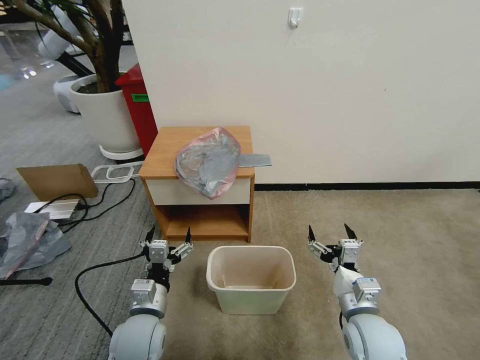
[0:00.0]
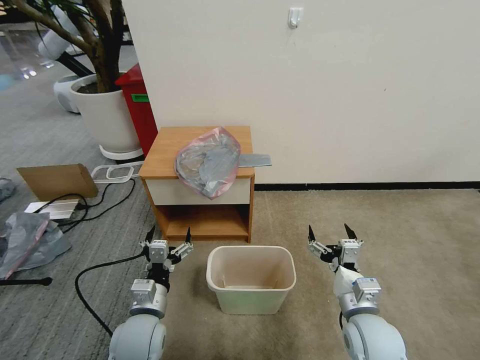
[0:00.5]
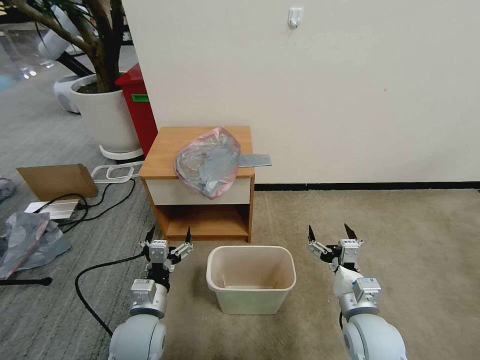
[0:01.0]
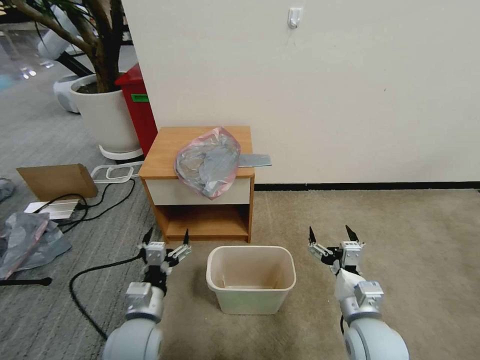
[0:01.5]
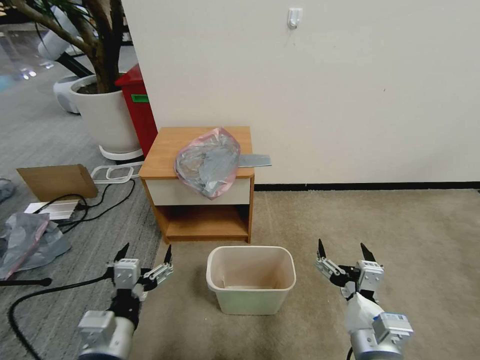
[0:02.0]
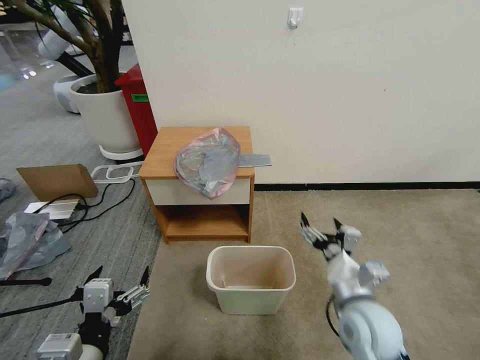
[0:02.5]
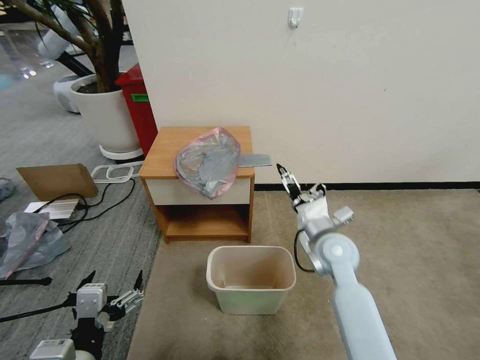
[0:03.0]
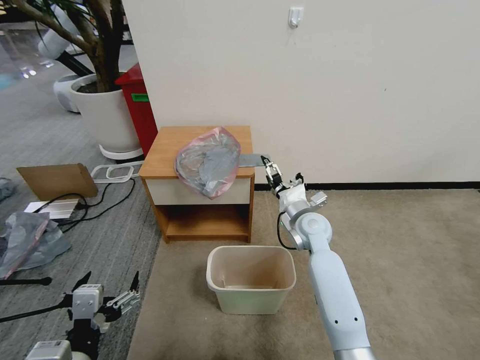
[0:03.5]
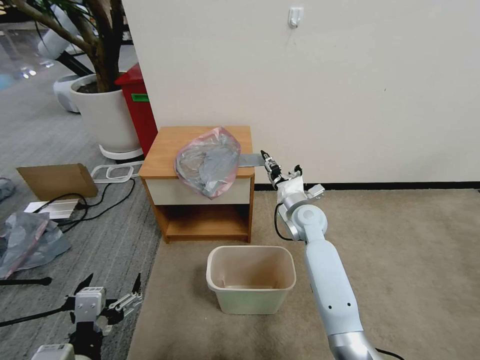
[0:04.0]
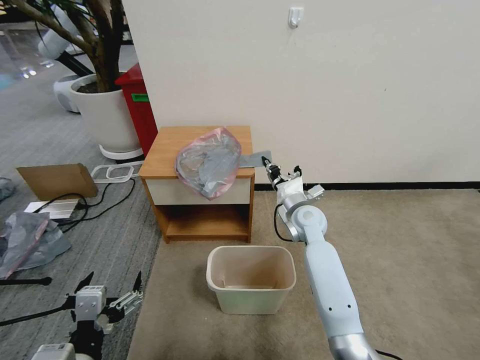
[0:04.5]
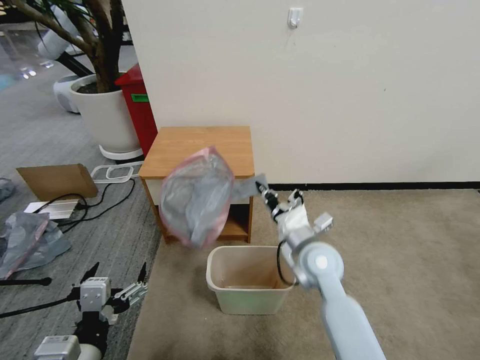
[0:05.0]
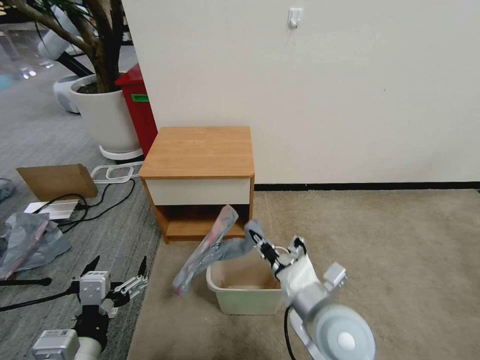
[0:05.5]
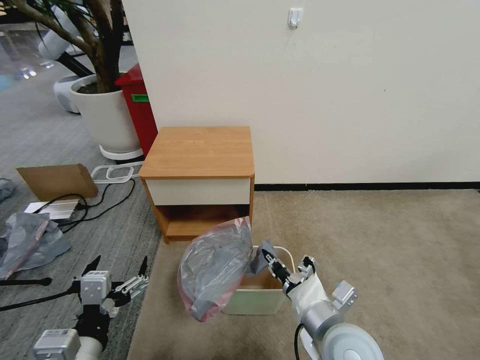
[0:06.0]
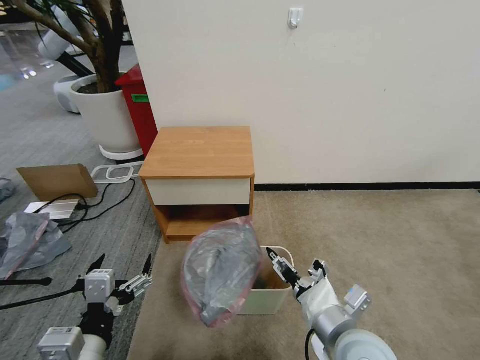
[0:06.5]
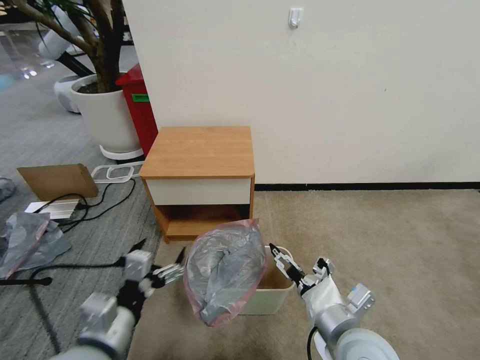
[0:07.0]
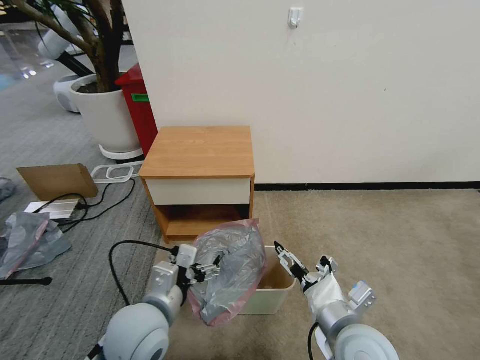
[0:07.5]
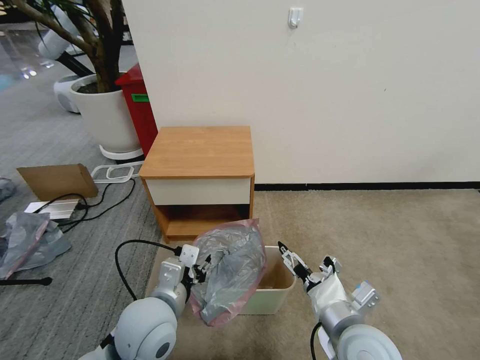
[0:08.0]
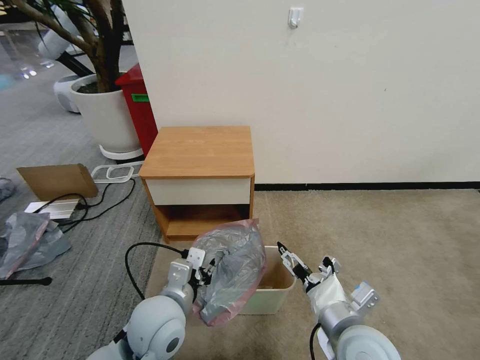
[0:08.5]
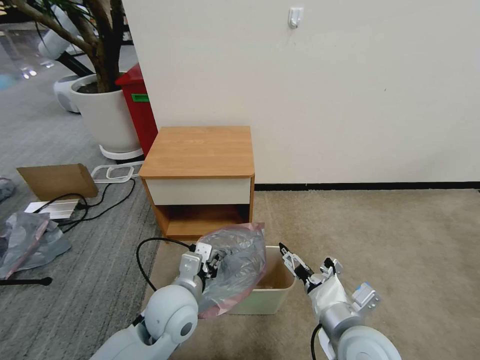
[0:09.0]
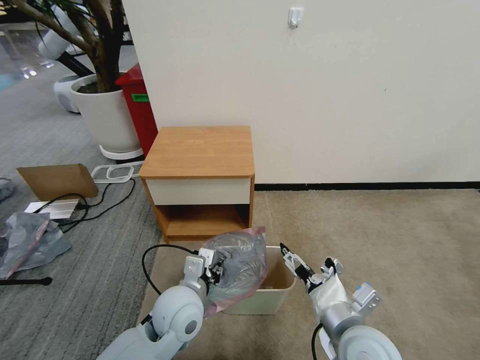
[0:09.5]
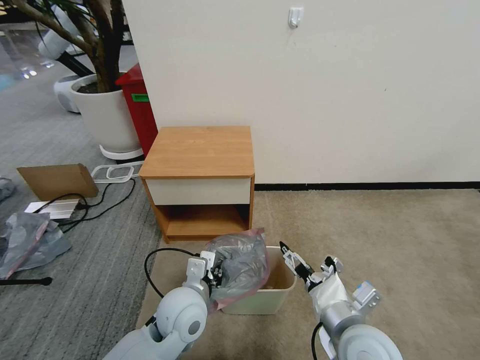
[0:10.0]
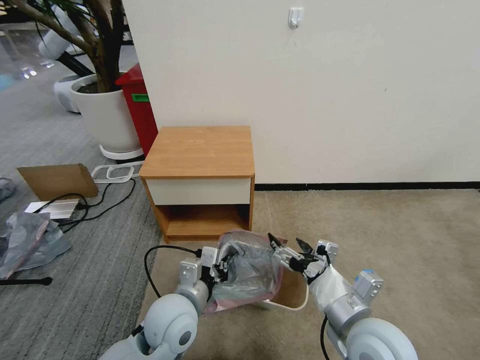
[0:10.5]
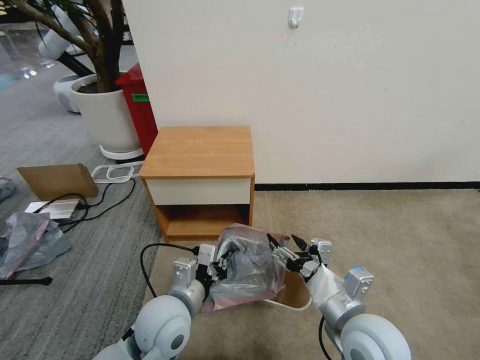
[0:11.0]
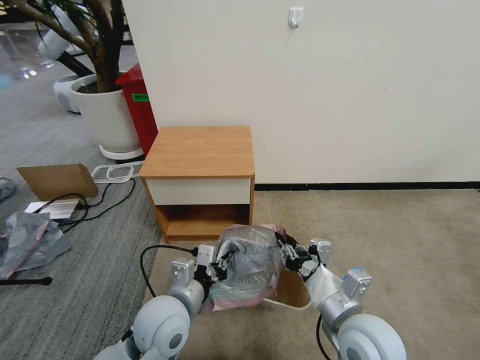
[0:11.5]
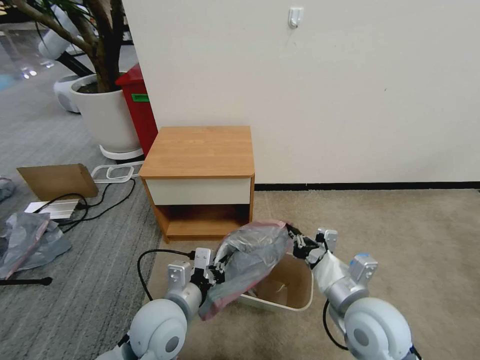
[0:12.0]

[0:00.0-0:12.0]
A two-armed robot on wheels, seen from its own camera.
Task of the whole recording: Pick up the garbage bag from the table and place it over the trash can.
0:02.0 to 0:04.0: The left gripper goes some 5 cm backward, while the right gripper heads forward, covering some 35 cm, and closes up.
0:04.0 to 0:06.0: The right gripper shifts about 30 cm backward, and closes.
0:06.0 to 0:08.0: The right gripper opens. The left gripper is displaced forward and to the right by approximately 15 cm, and closes up.
0:08.0 to 0:10.0: The left gripper is displaced downward by approximately 5 cm.
0:10.0 to 0:12.0: The right gripper closes up.

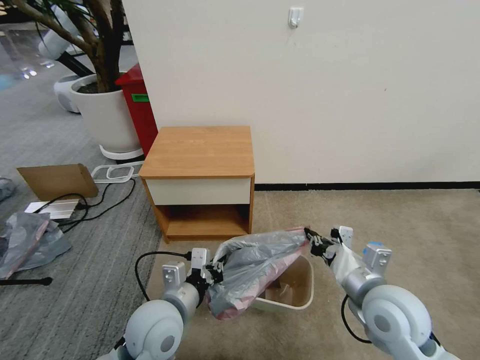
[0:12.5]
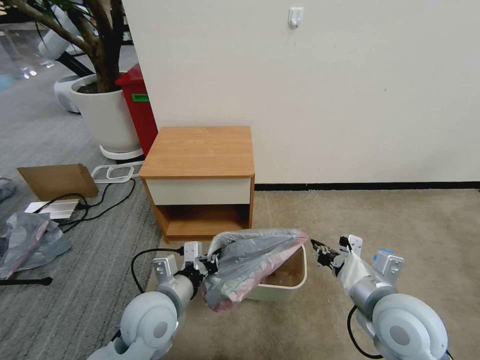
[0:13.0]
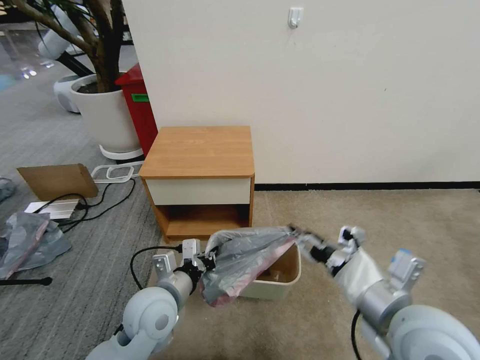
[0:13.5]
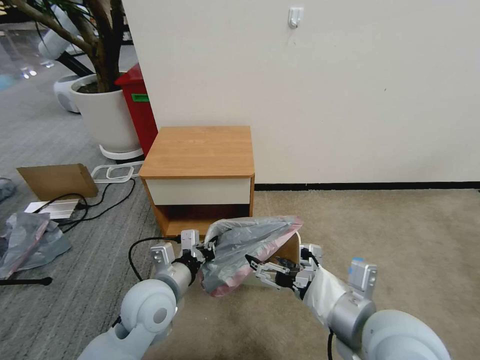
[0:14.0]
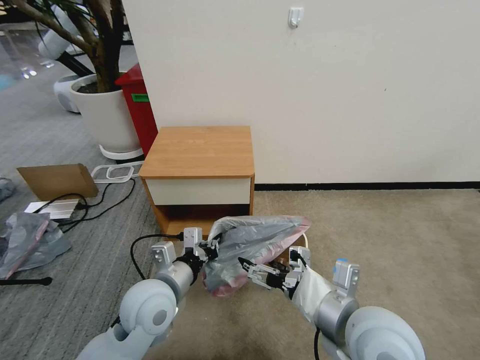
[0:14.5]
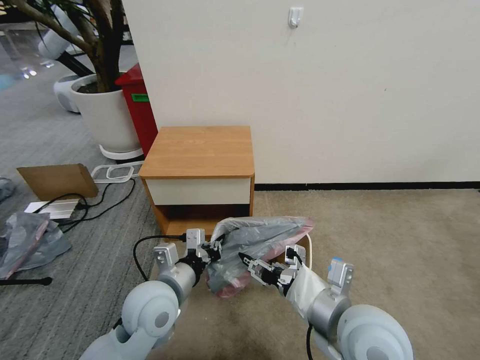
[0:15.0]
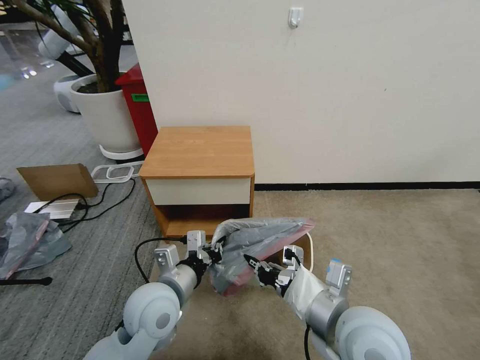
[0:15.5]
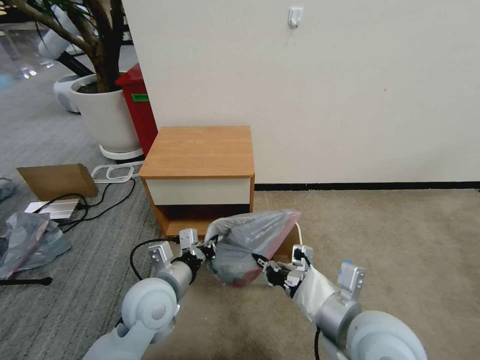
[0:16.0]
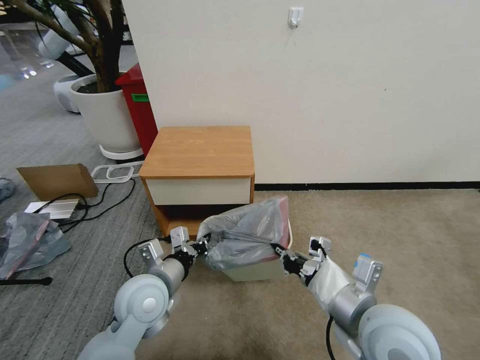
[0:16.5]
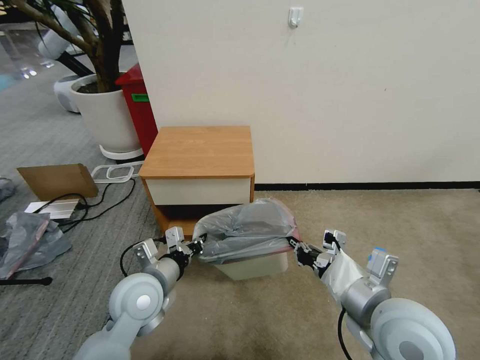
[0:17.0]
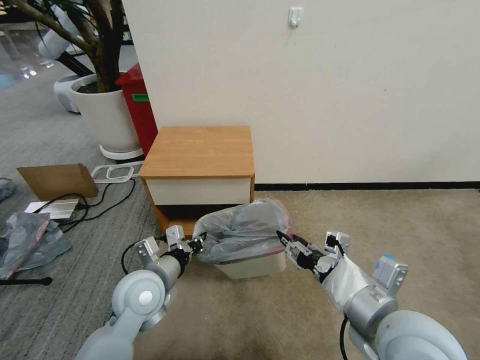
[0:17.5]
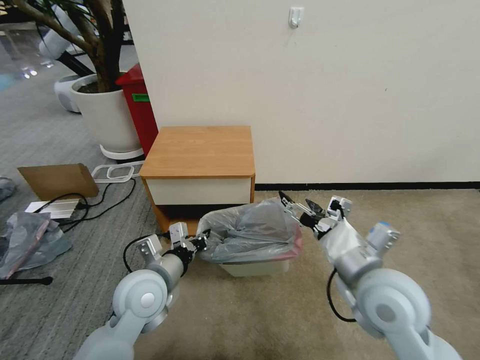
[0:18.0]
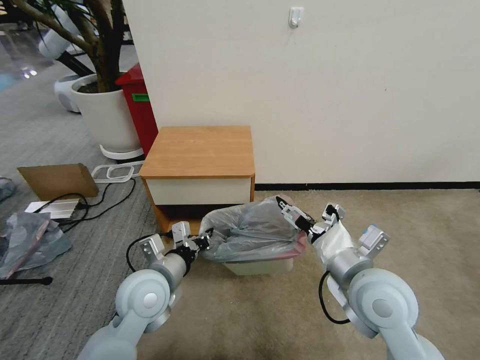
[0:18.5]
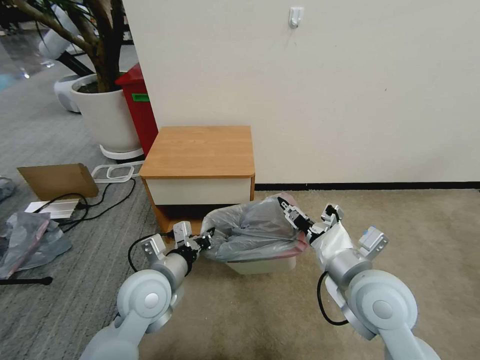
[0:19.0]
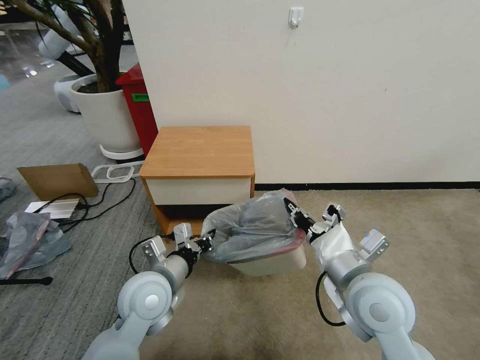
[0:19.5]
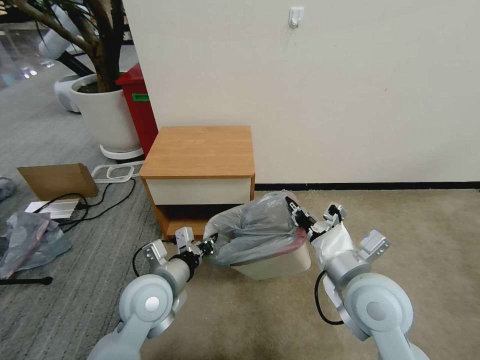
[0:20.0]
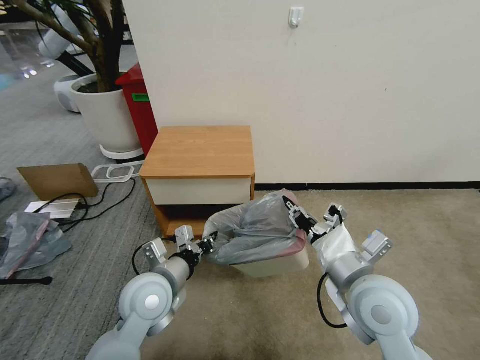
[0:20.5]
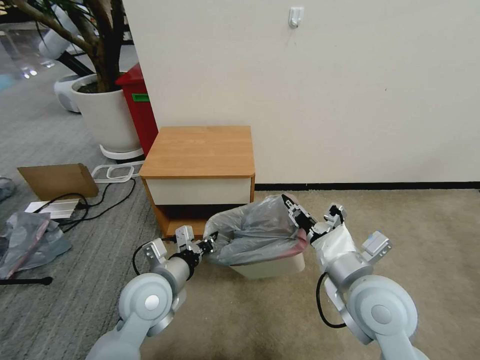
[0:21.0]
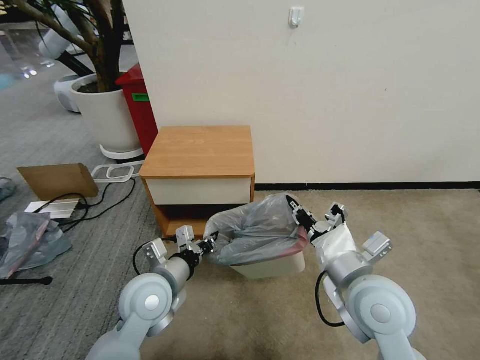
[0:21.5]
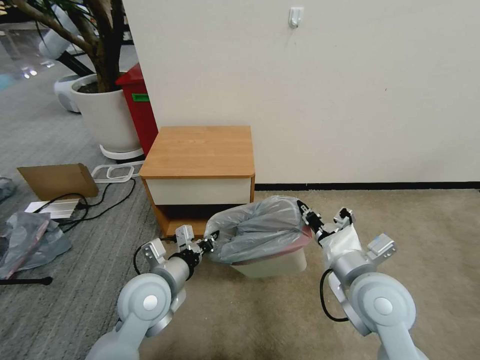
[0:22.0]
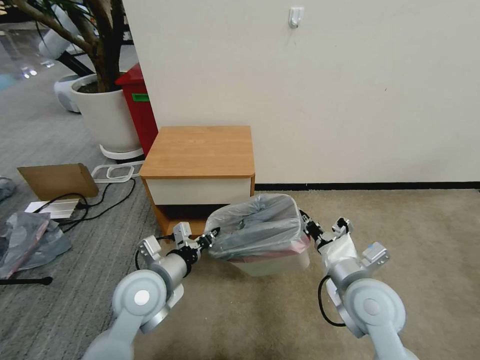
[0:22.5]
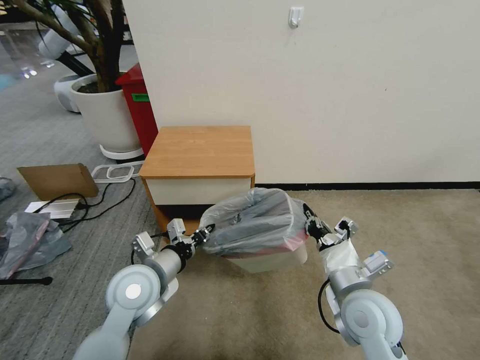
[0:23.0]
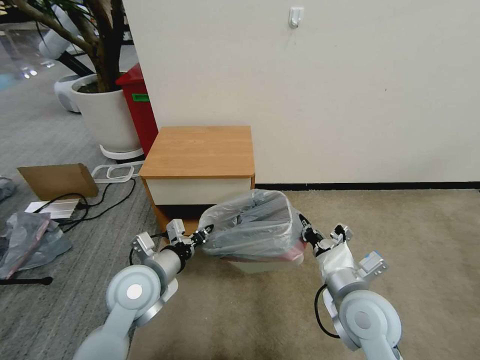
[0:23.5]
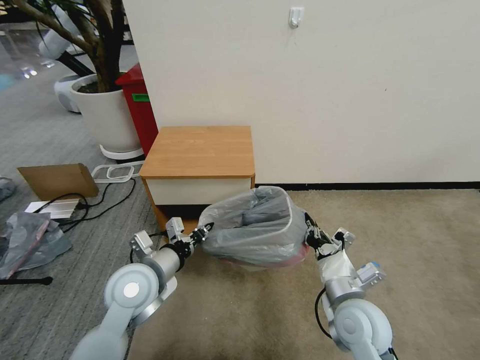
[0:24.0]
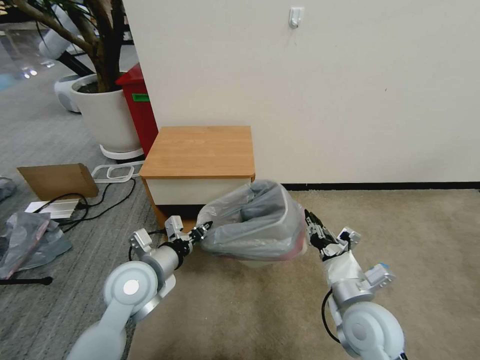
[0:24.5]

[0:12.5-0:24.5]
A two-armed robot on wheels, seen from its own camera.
Task of the whole recording: Pick up the garbage bag from the table and place it over the trash can.
0:12.5 to 0:14.5: The right gripper travels to the left by some 5 cm, and opens.
0:14.5 to 0:16.5: The right gripper closes.
0:16.5 to 0:18.5: The right gripper heads forward, covering some 5 cm, and opens its fingers.
0:18.5 to 0:20.5: The right gripper closes its fingers.
0:20.5 to 0:22.5: The right gripper shifts approximately 5 cm downward.
0:22.5 to 0:24.5: The right gripper changes place by roughly 5 cm.

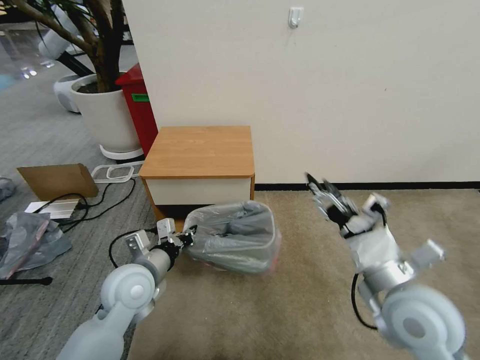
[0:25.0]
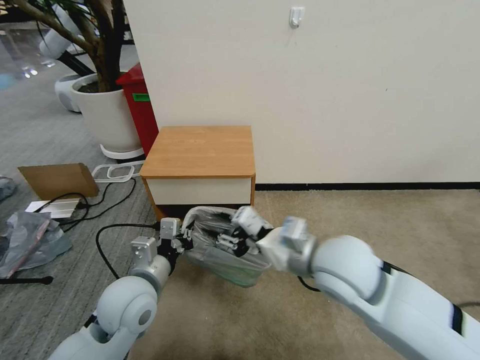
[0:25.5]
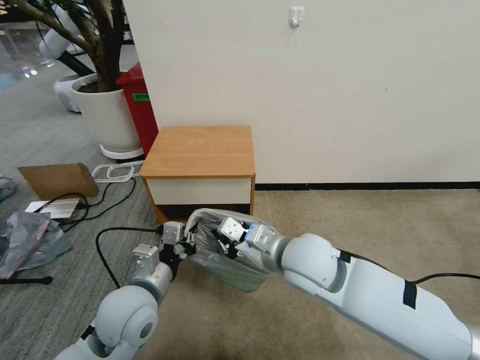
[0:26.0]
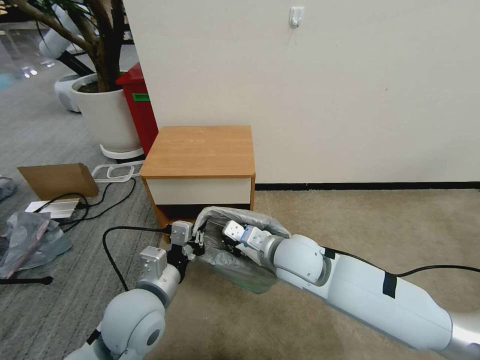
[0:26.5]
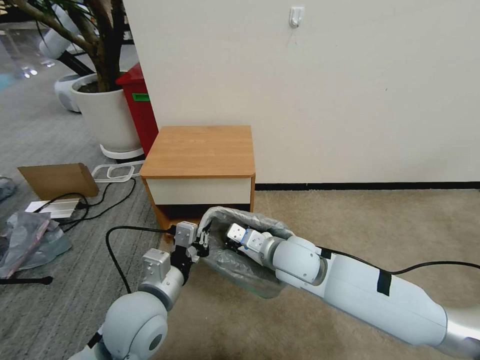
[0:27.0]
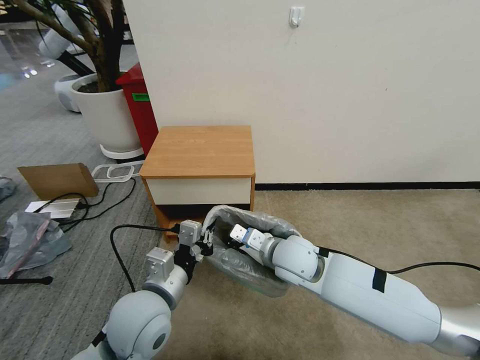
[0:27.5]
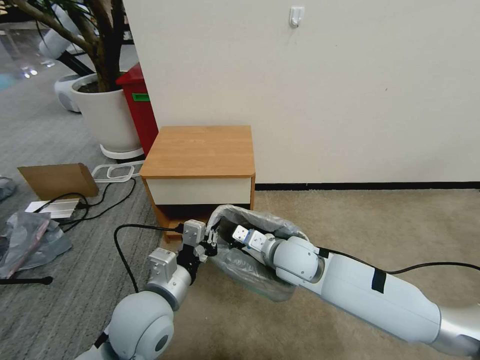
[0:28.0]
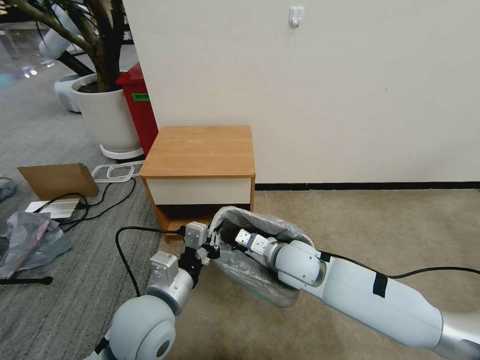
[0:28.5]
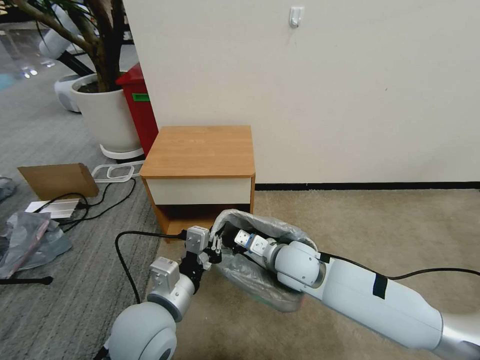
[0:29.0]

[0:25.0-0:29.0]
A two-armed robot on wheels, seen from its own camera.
Task of the whole recording: Pick up the garbage bag from the table and place it over the trash can.
0:25.0 to 0:27.0: The right gripper goes roughly 20 cm to the left and forward, and closes its fingers; the left gripper is displaced backward by roughly 5 cm.
0:27.0 to 0:29.0: The grippers stay close to where they were, moving slightly.
